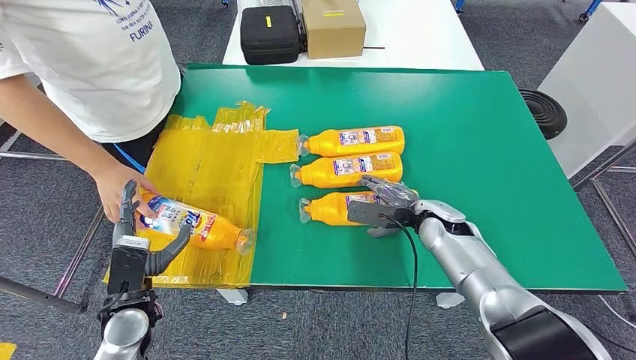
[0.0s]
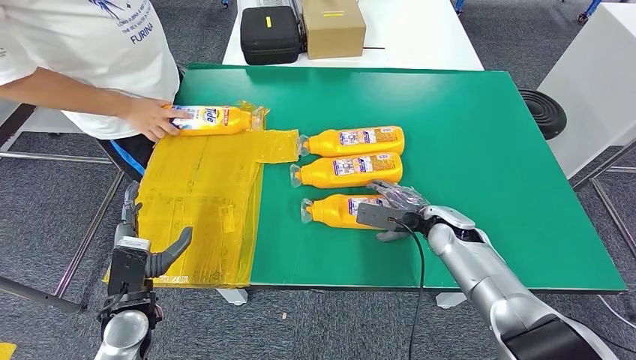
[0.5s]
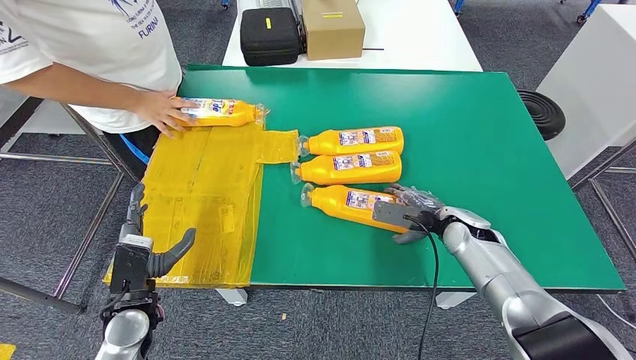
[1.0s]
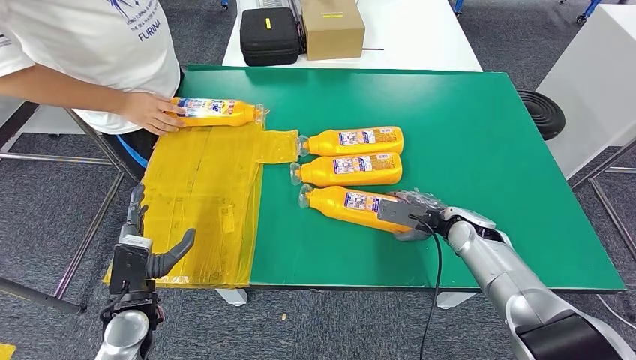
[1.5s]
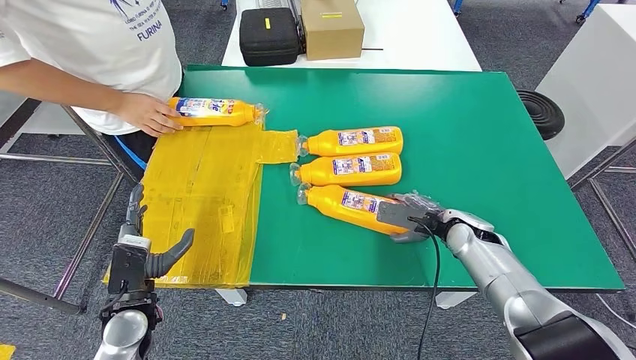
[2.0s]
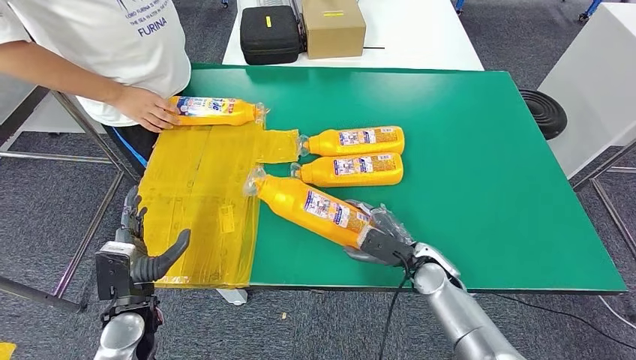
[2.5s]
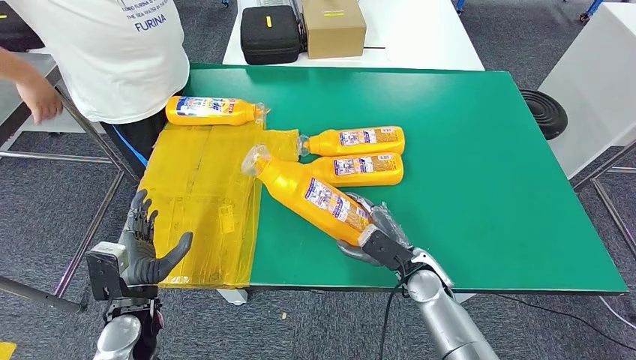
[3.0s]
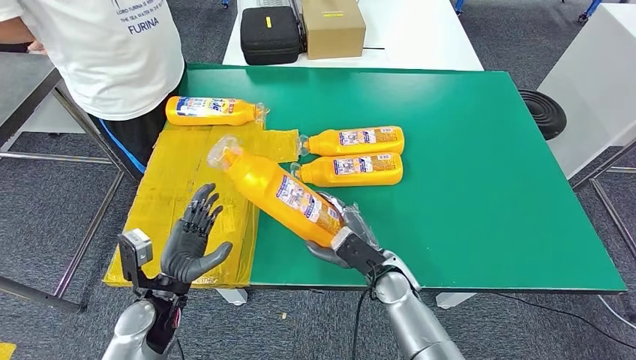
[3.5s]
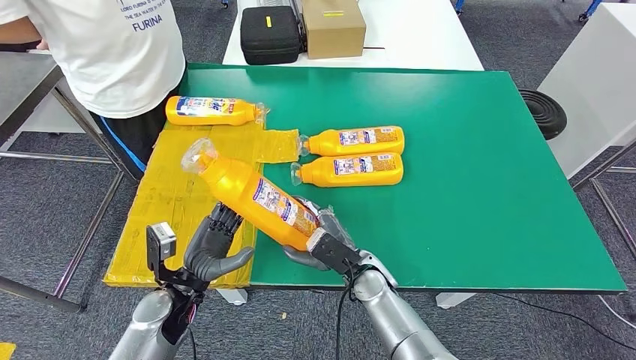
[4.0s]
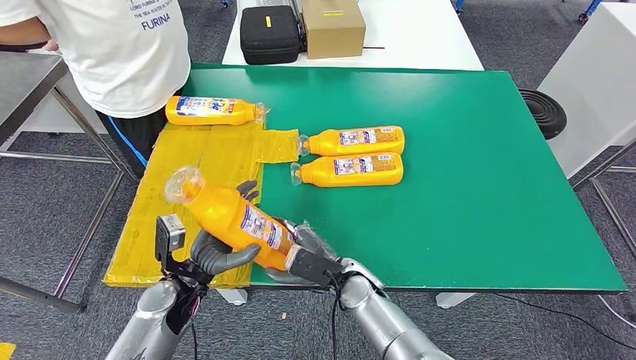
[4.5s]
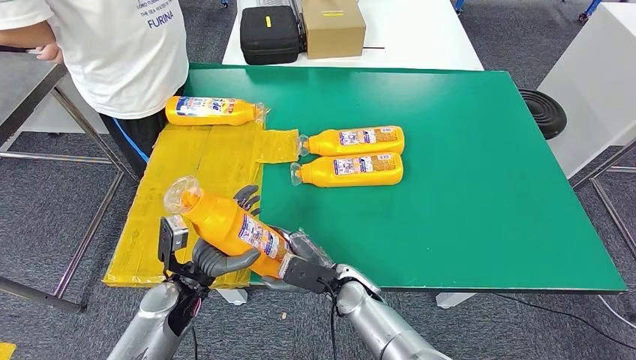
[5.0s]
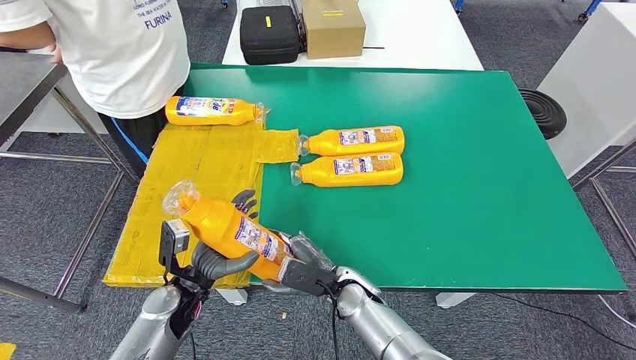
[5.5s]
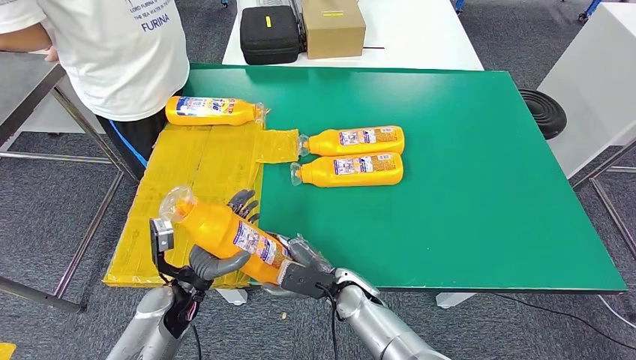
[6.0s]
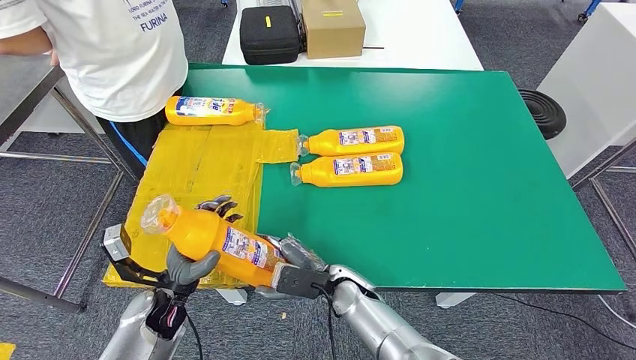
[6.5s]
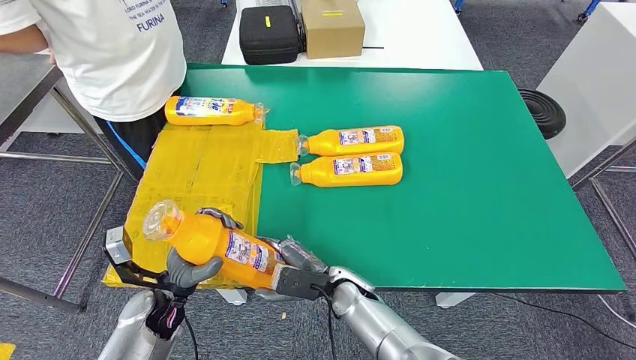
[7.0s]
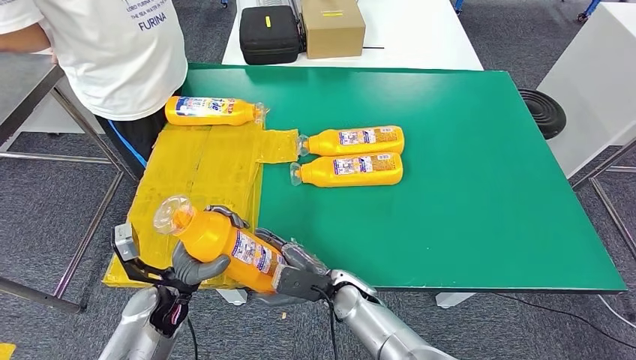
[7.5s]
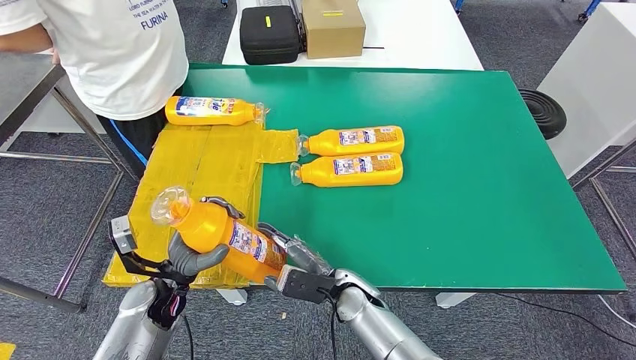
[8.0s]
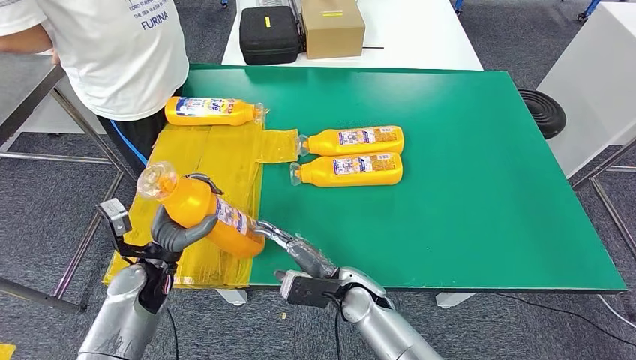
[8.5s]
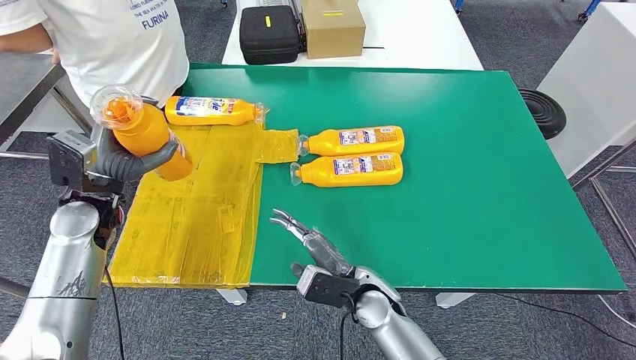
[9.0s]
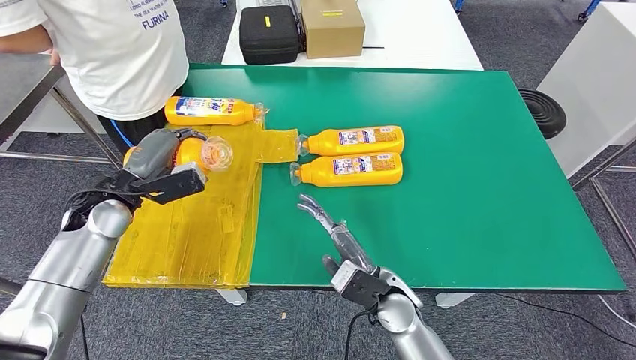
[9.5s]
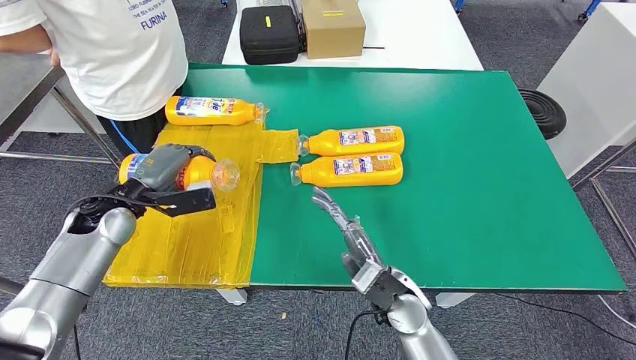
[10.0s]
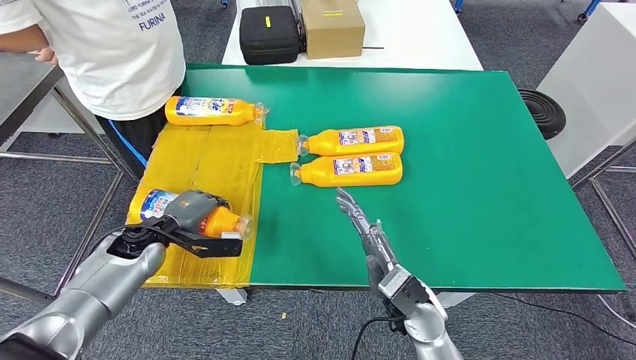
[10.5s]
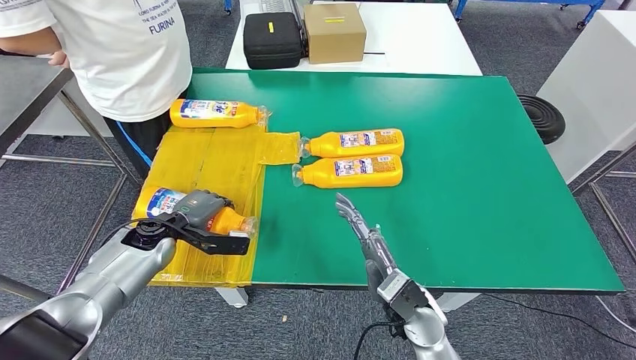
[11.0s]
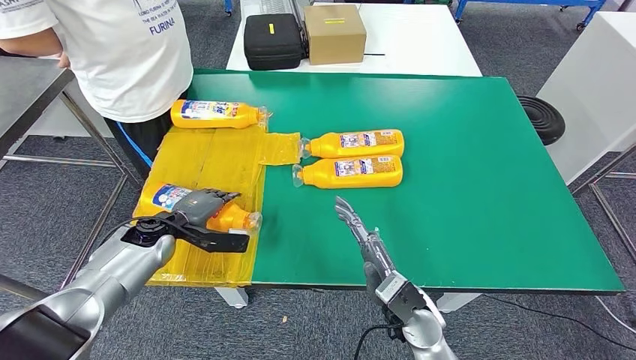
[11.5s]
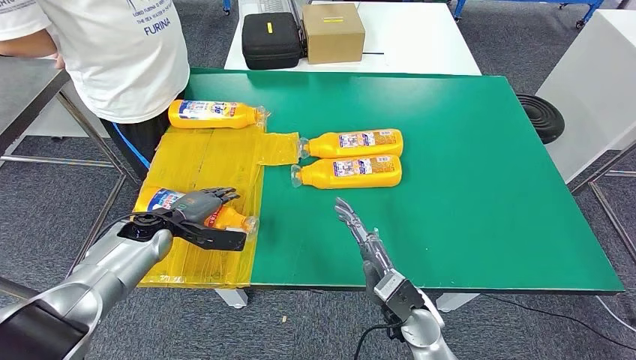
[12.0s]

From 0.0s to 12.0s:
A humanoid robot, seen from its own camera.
Step, from 0.0s to 4.5s: Pick up the fast-moving consumer goods bottle from the table.
Step, from 5.0s to 11.5s: Flip the fast-moving consumer goods bottle to the front side.
From 4.0s to 6.0s: The hands move only a little.
From 8.0s to 10.0s: The right hand heads to the right and upward, covering some 10 cm. The left hand travels forward, upward and to the left by some 15 cm.

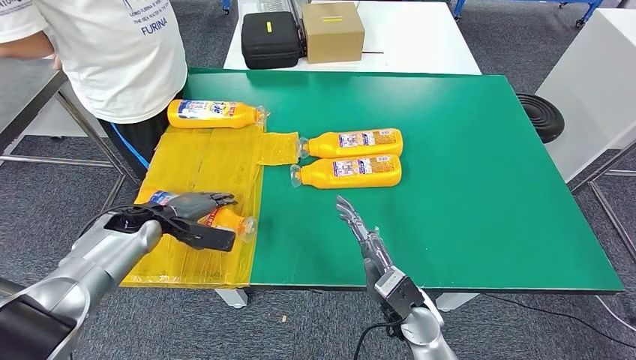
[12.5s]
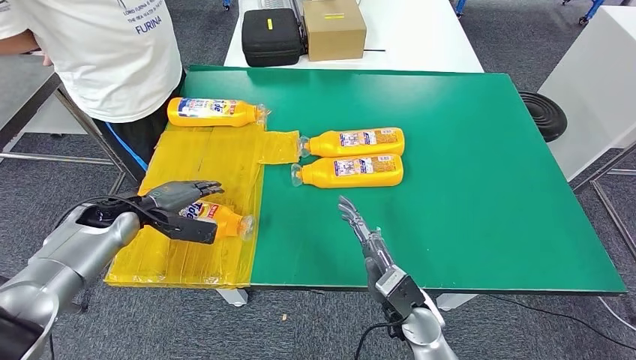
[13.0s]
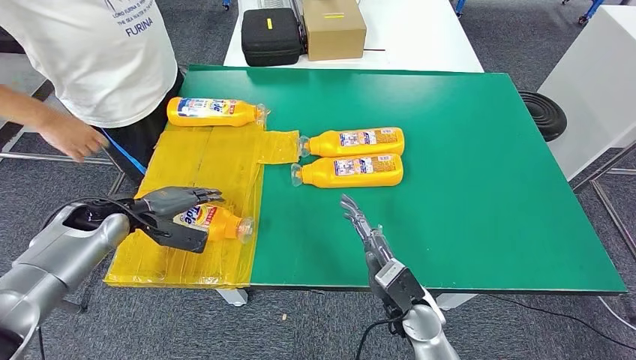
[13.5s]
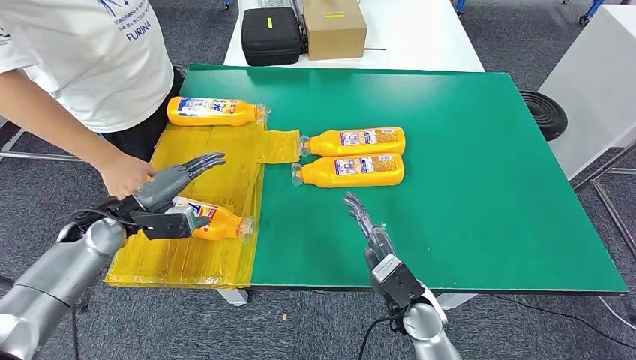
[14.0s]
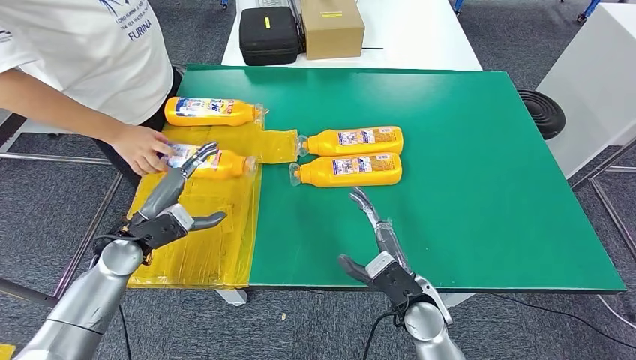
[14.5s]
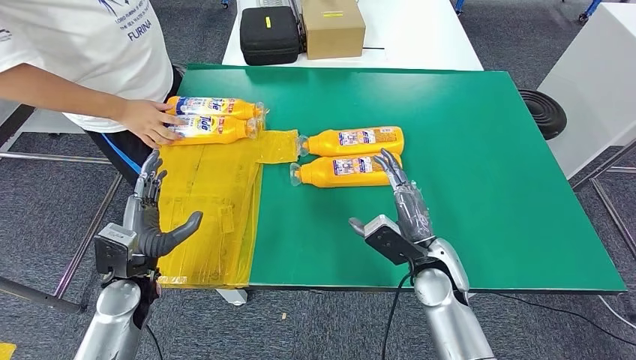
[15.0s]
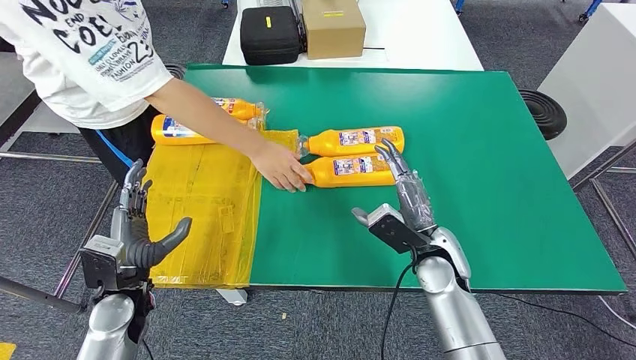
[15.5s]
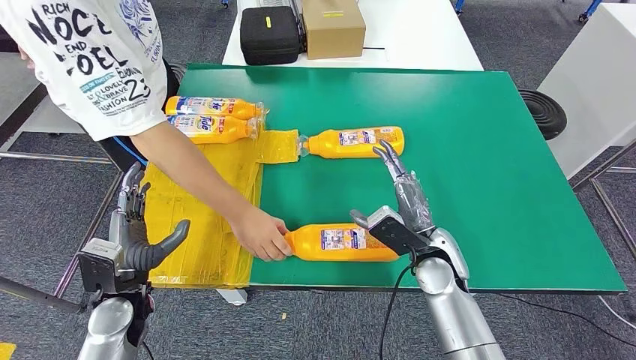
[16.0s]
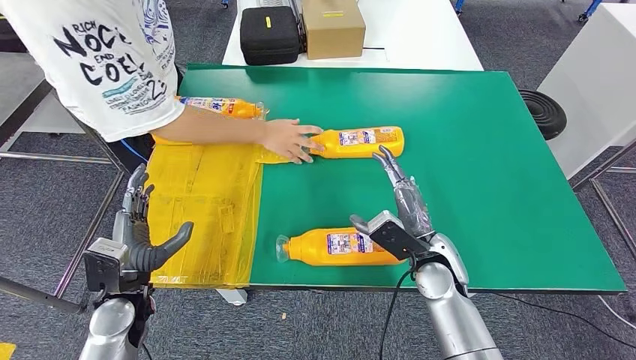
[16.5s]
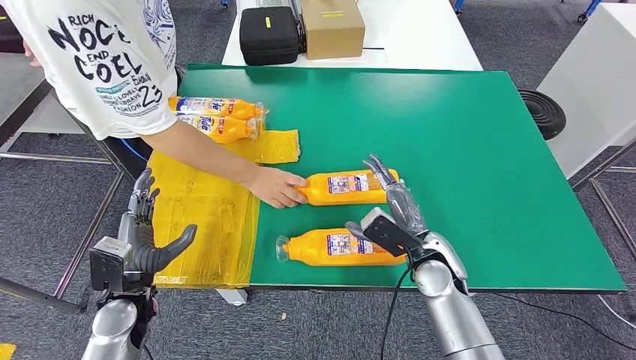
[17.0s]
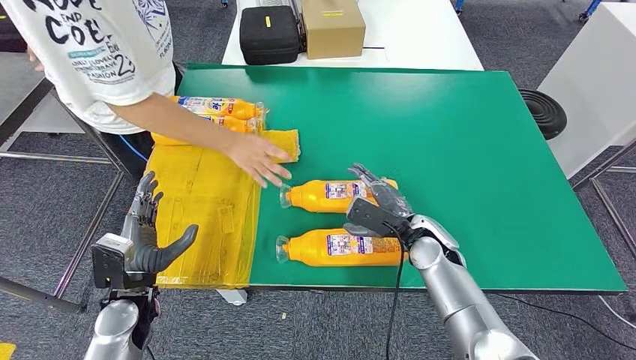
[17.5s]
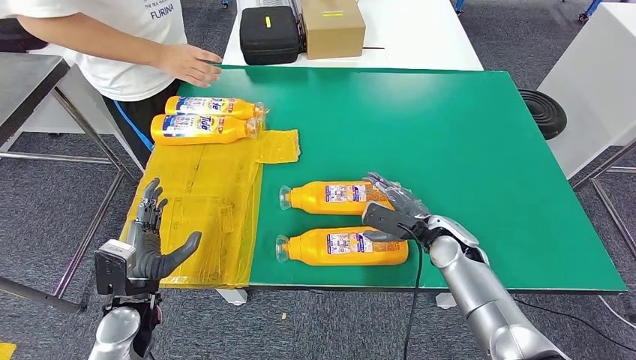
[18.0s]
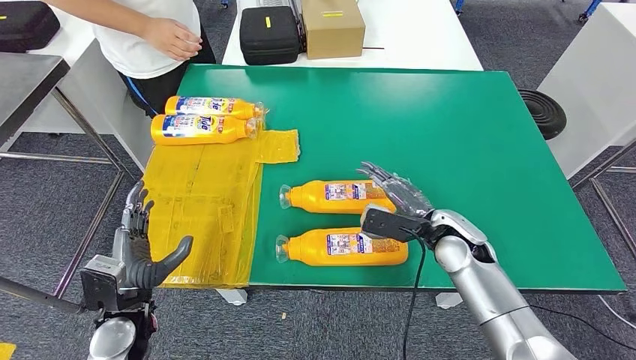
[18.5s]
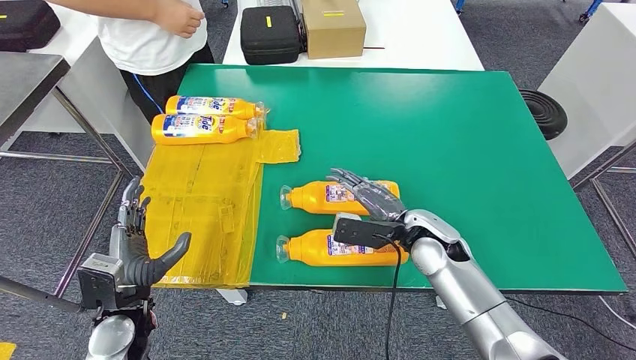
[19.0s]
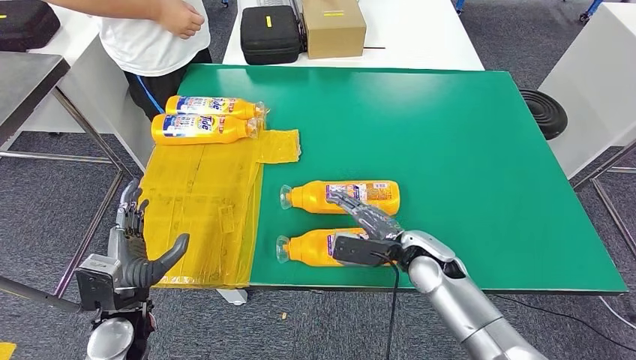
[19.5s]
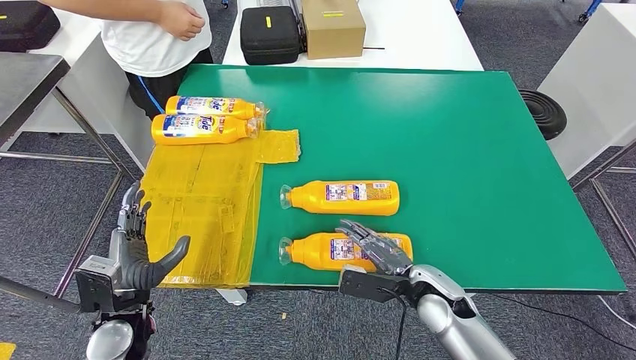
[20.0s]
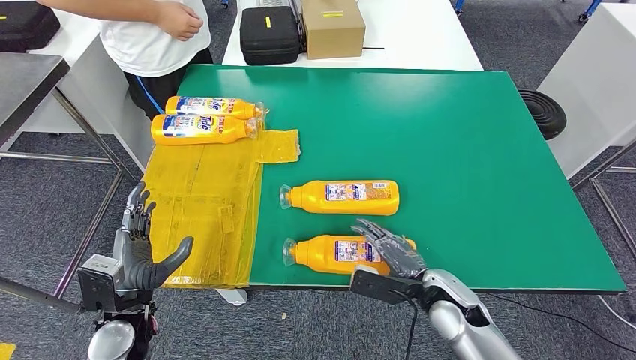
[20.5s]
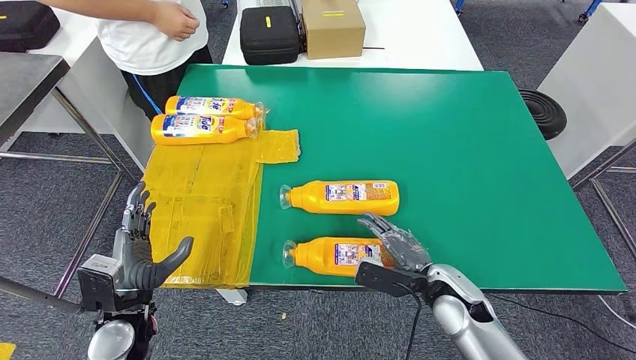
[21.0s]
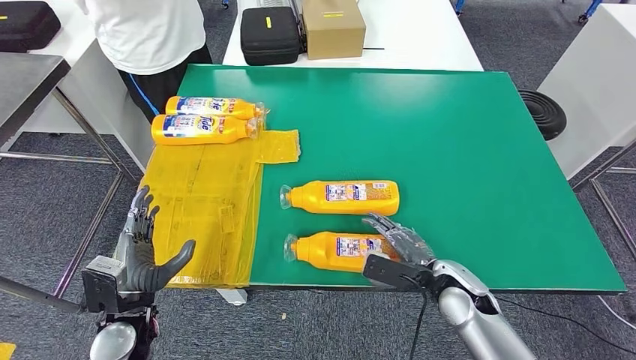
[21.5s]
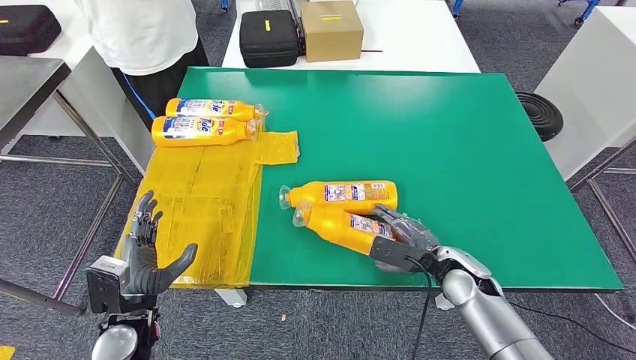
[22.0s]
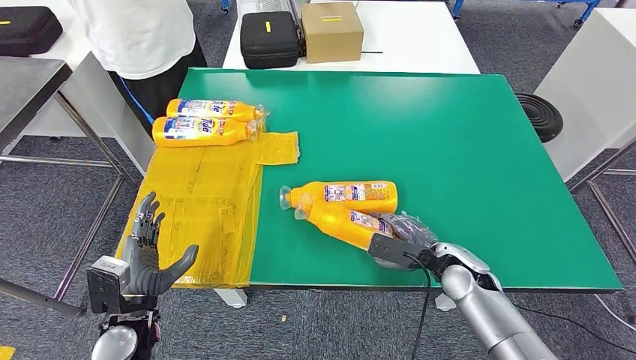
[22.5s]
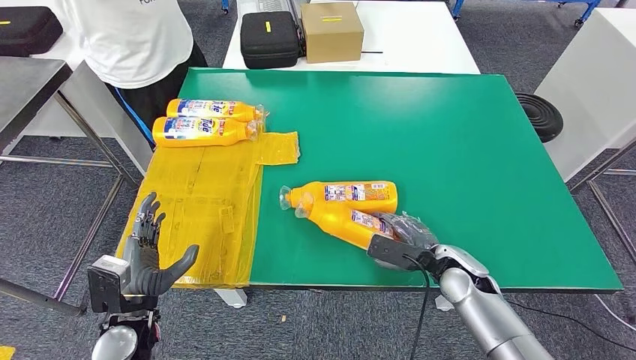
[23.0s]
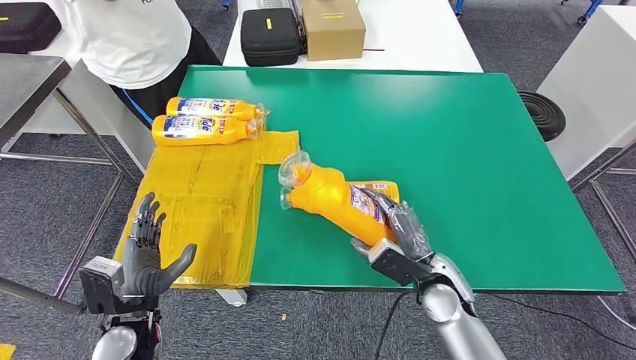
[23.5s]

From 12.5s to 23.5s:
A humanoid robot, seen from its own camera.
From 18.0s to 20.0s: The right hand travels backward by roughly 10 cm.
From 20.0s to 21.5s: The hands move only a little.
